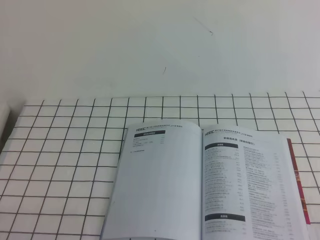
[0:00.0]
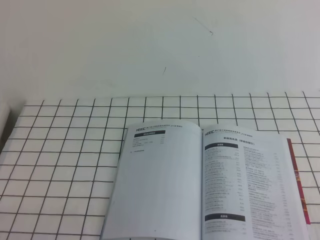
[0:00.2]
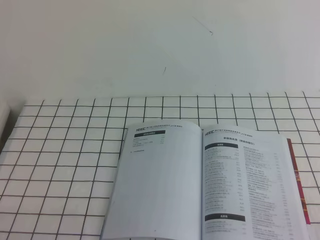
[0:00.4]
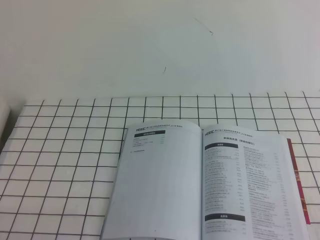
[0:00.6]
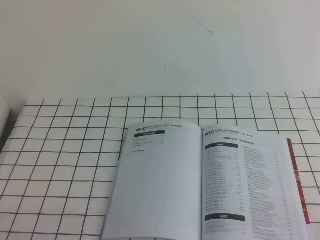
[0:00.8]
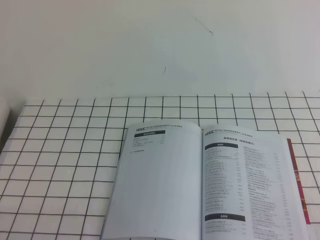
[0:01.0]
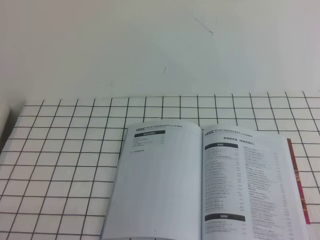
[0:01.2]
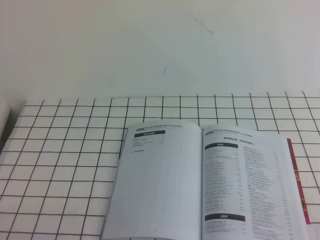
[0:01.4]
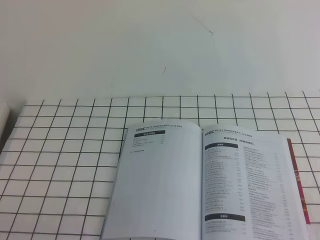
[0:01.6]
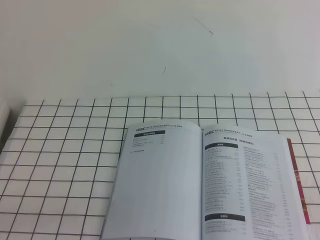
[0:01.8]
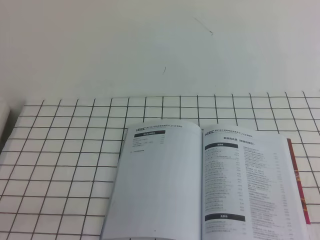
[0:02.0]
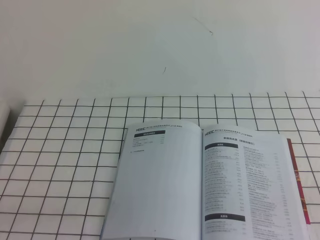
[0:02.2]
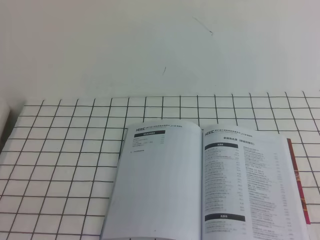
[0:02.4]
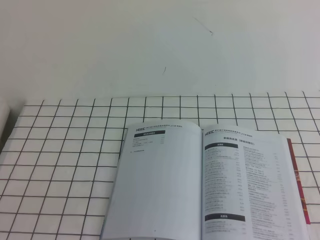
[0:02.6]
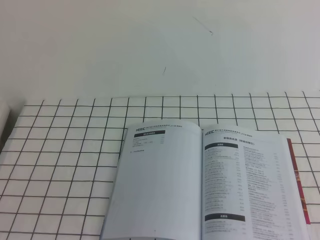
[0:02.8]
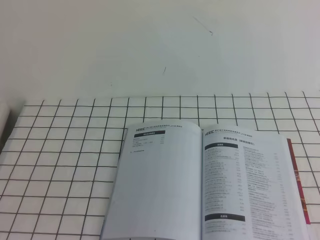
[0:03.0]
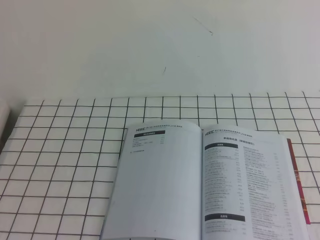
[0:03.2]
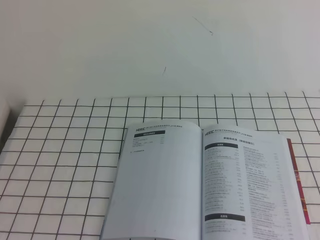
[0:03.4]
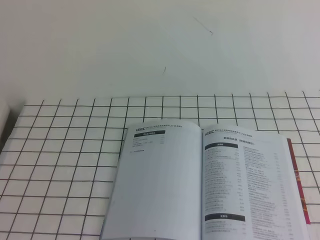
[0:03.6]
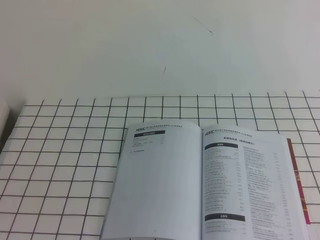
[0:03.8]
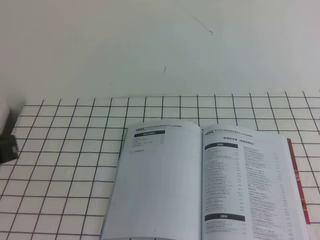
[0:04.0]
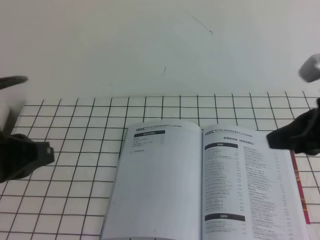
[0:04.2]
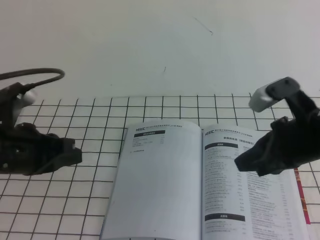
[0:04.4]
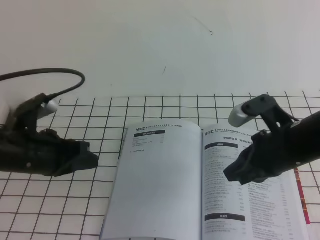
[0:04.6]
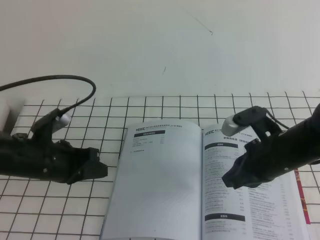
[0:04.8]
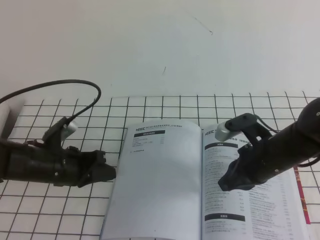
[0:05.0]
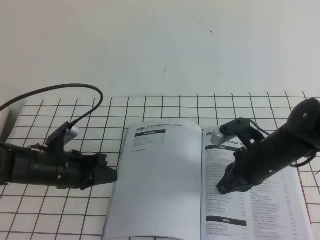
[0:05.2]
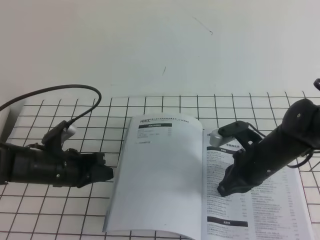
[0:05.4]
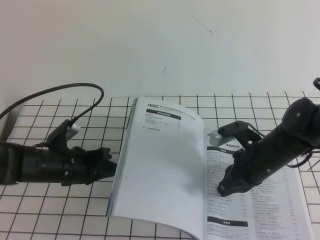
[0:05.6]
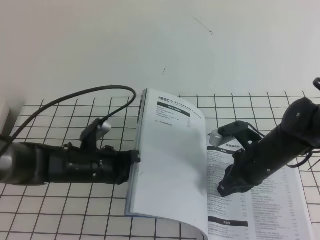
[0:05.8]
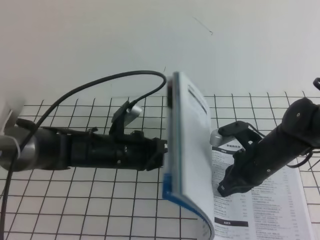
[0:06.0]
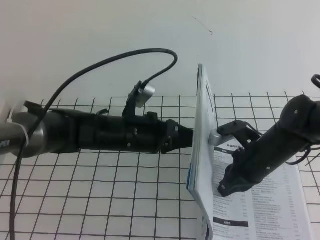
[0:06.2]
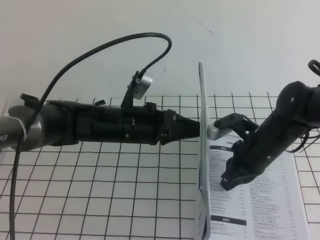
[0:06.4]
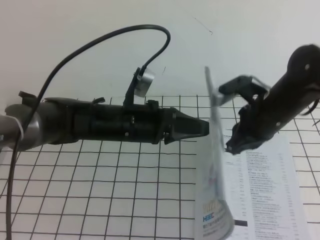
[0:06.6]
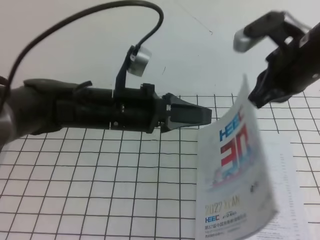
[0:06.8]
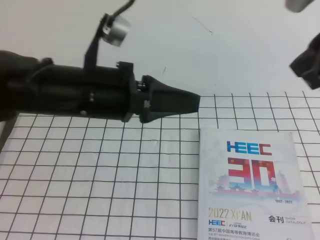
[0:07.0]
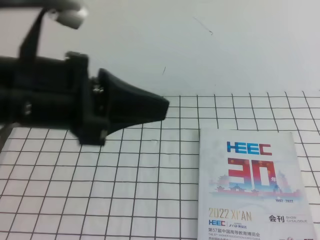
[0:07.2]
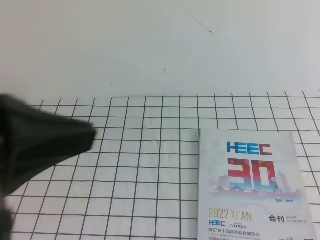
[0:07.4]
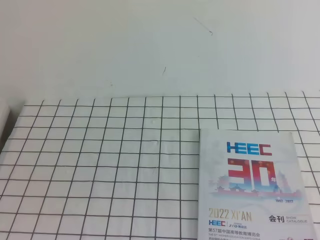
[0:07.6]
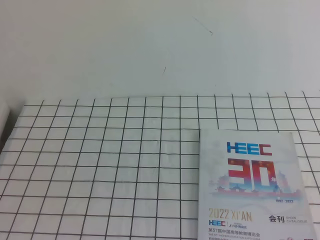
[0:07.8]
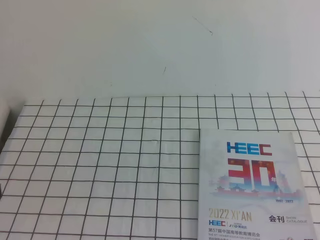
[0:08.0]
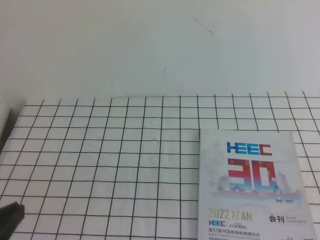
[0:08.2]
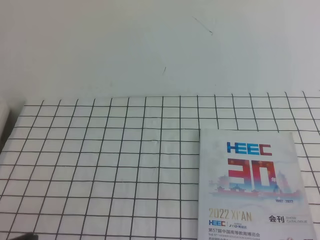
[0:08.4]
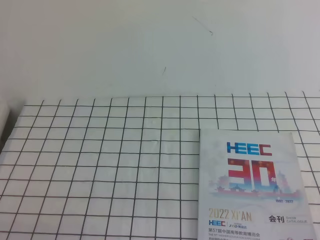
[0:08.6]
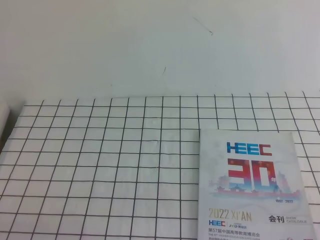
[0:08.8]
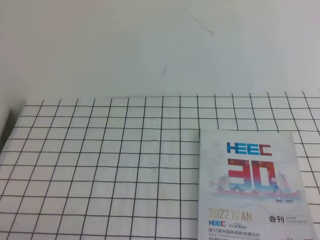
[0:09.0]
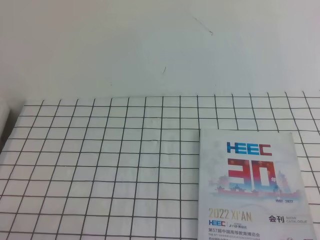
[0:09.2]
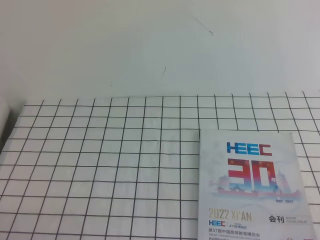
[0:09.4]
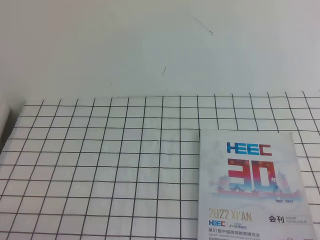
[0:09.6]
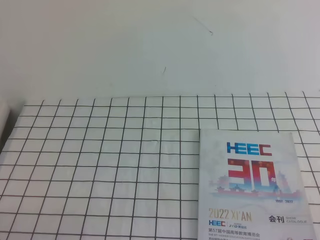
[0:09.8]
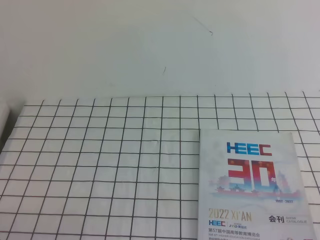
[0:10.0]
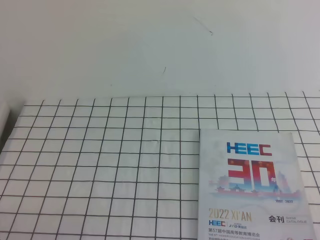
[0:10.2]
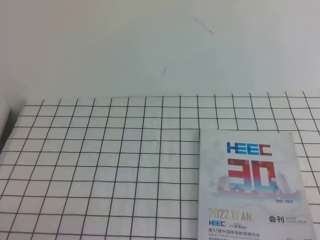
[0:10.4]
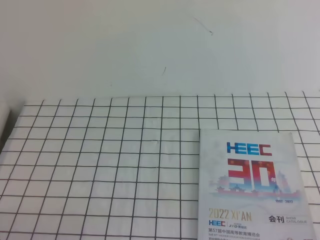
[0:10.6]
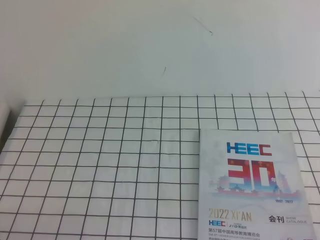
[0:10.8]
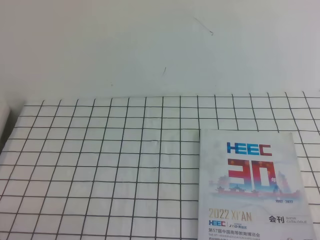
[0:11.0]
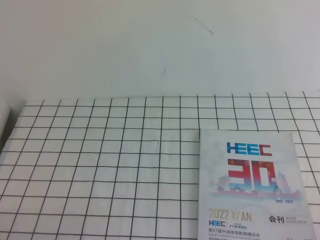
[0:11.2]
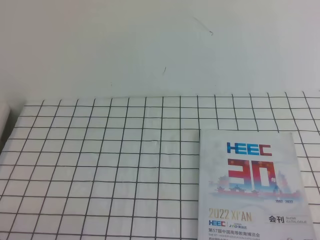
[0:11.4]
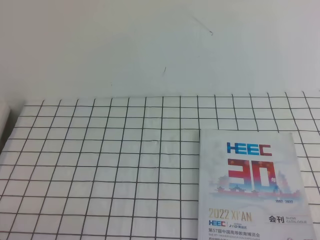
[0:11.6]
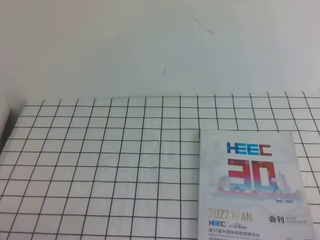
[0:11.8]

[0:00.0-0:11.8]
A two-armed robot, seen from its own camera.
Task of the whole recording: on the white tablecloth, hold the book with one hand and close it with the other.
Step, 0:00.0 to 0:11.8: Close the open book.
0:00.0 to 0:01.4: Both grippers stay about where they are.
0:03.0 to 0:04.4: The right gripper moves forward, to the left and downward, approximately 35 cm. Meanwhile the left gripper heads forward, covering roughly 25 cm.
0:04.4 to 0:06.0: The right gripper shifts roughly 15 cm downward and forward, while the left gripper is displaced downward, to the right and forward by roughly 20 cm.
0:06.0 to 0:07.4: The left gripper moves upward and backward, roughly 35 cm; the right gripper heads upward, backward and to the right, covering approximately 40 cm.
0:07.4 to 0:08.8: The two grippers go roughly 25 cm downward.
